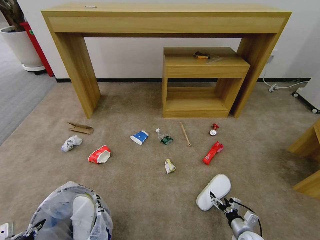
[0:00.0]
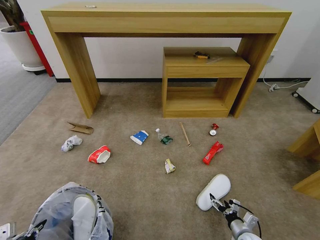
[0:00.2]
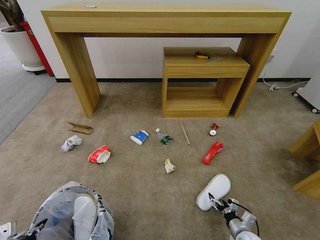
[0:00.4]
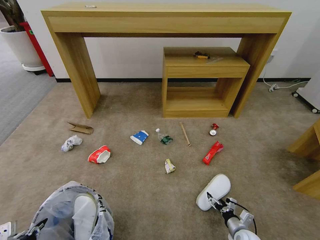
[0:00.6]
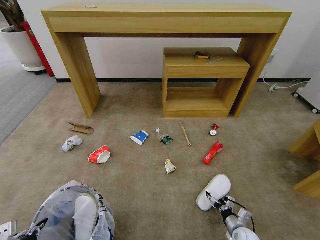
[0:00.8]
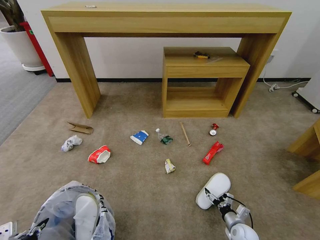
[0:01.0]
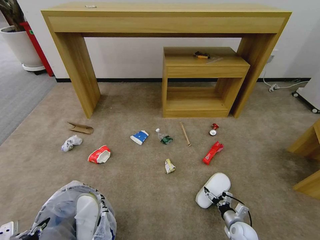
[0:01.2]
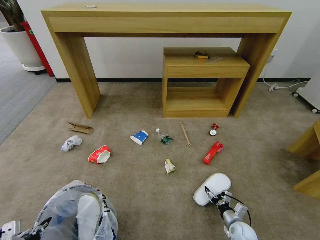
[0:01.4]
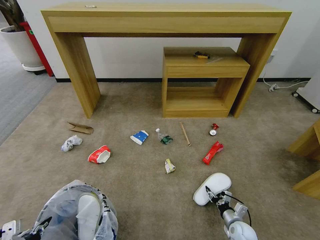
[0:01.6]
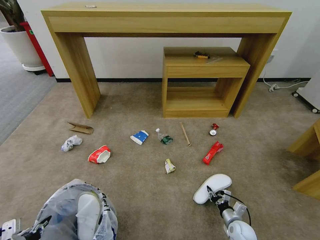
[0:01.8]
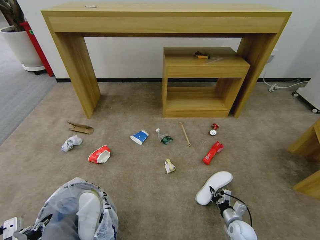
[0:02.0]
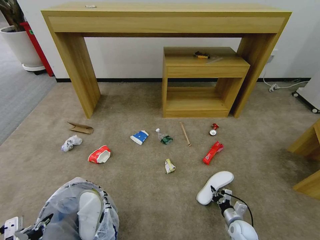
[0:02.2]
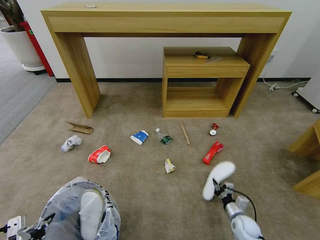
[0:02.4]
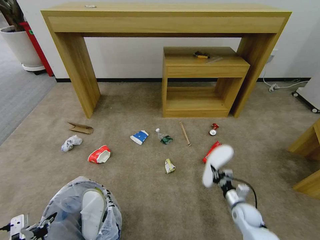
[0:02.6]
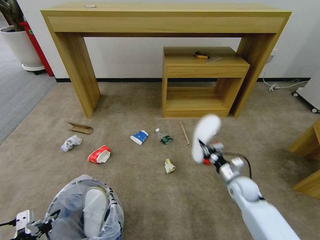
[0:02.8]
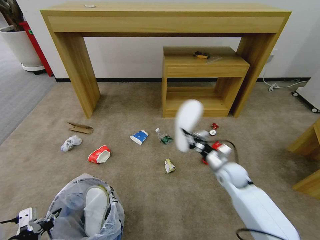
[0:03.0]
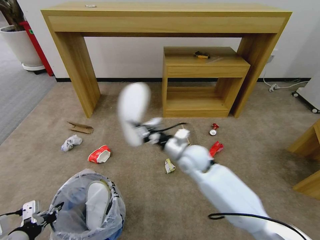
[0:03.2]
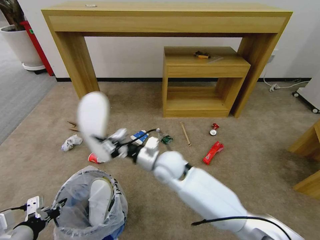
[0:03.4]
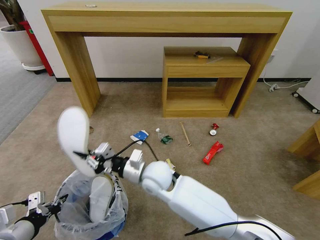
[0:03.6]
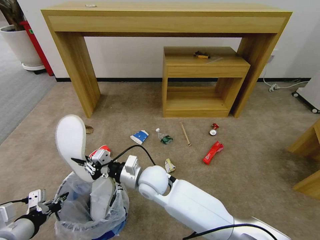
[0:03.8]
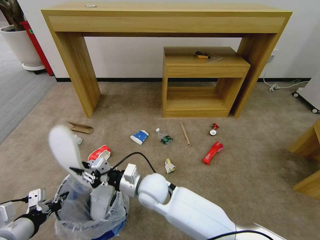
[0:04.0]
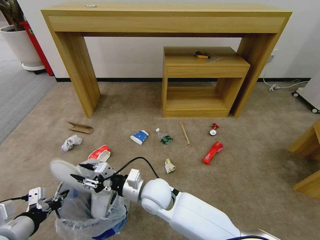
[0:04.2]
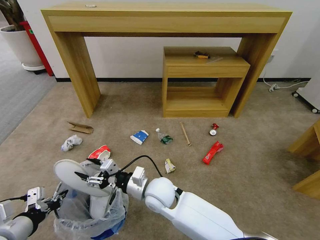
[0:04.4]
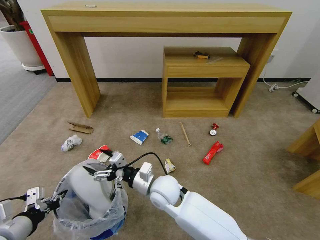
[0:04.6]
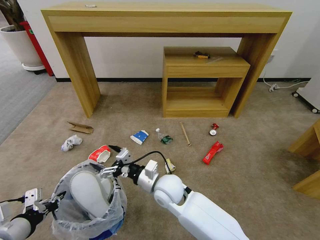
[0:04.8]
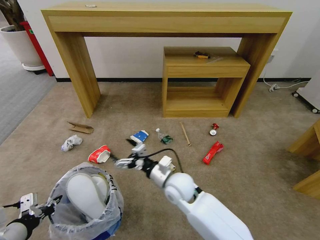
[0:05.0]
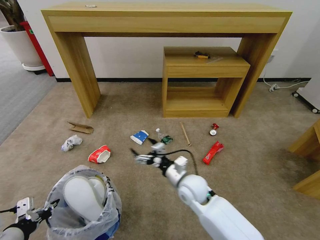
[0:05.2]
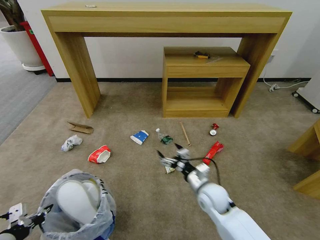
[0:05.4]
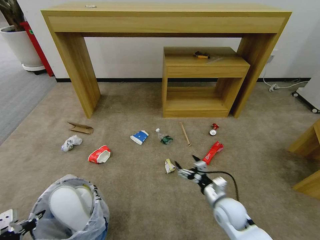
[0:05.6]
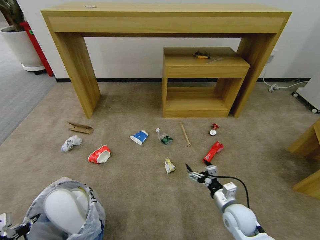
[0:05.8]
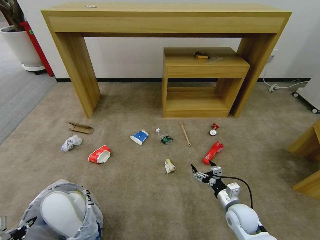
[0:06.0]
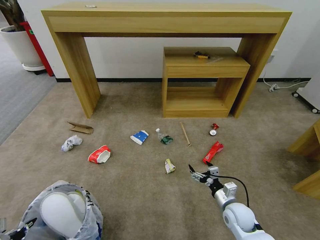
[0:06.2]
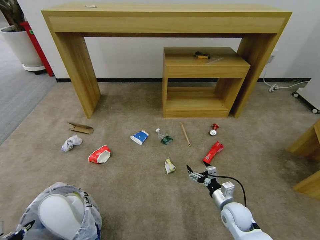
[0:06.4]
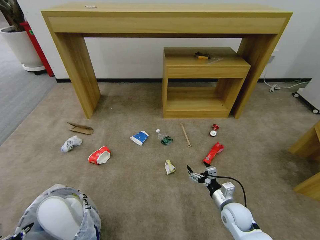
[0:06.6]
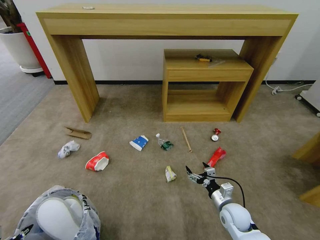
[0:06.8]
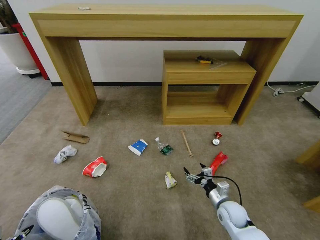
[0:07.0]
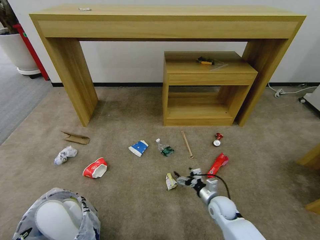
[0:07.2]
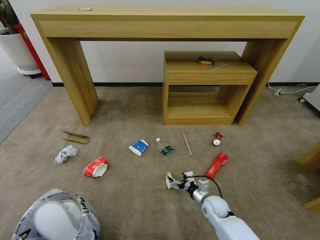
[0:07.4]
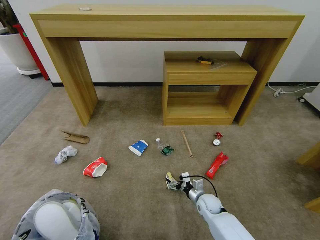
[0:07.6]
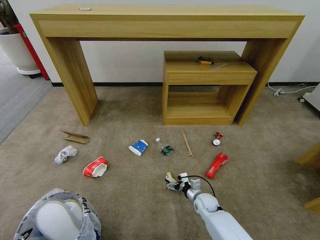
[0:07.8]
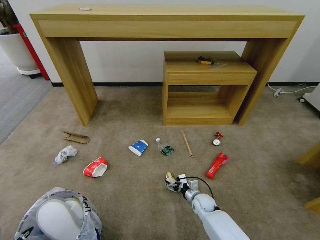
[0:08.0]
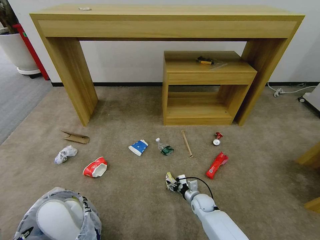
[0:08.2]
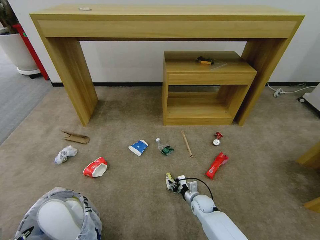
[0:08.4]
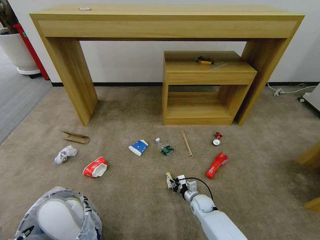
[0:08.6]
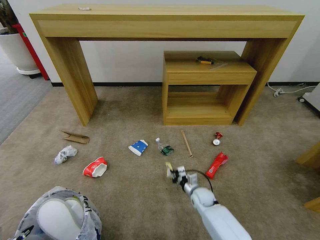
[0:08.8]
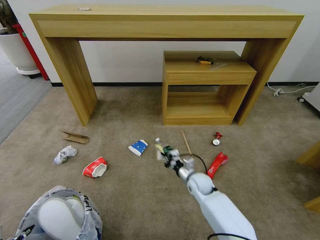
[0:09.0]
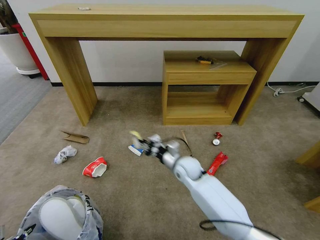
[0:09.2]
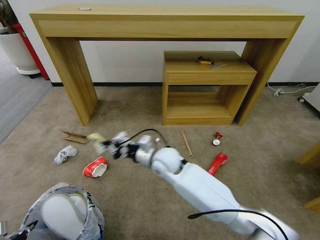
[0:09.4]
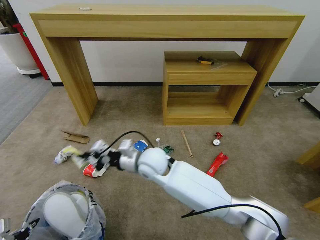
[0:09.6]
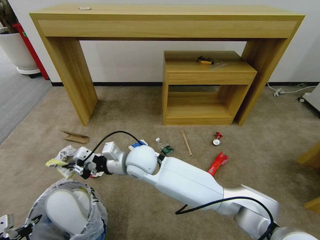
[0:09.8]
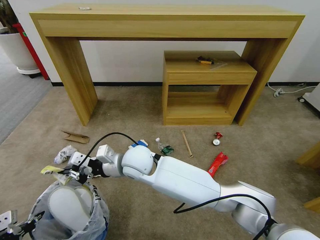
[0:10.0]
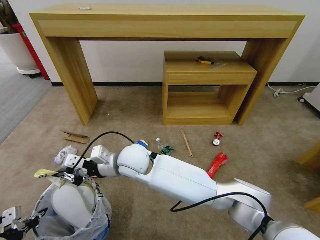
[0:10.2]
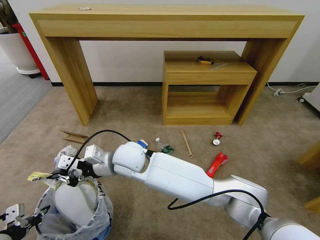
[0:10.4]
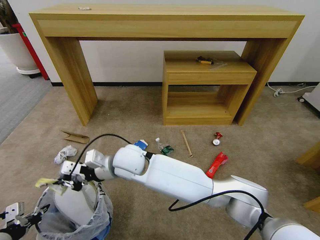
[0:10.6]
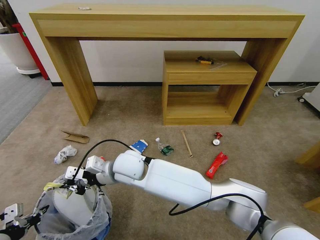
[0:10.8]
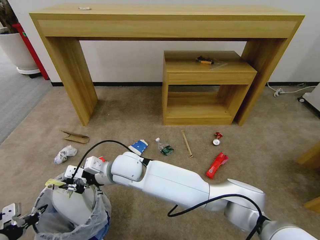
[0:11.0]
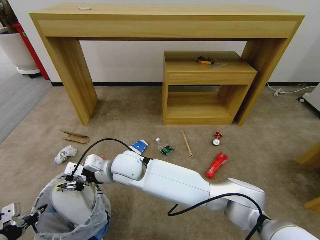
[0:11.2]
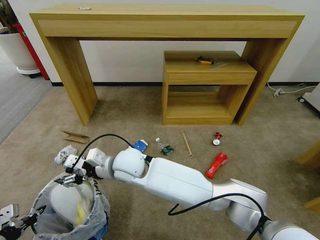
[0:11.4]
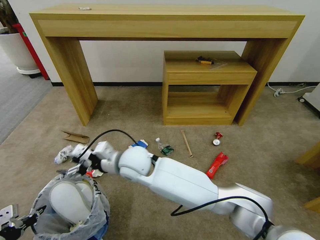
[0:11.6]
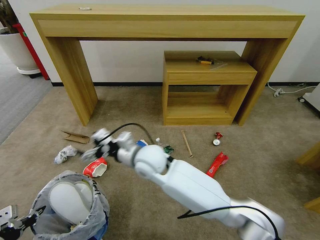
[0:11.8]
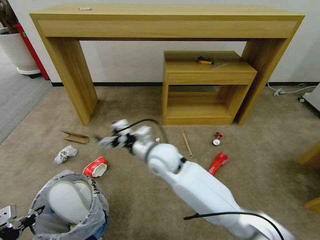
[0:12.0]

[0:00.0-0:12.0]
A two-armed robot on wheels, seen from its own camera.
Task of the whole recording: Pick up the trash bin and place the garbage on the floor into it.
0:00.0 to 0:01.6: The right gripper ends up about 5 cm from where it was, and closes.
0:01.6 to 0:03.0: The right gripper is displaced upward, forward and to the left by about 30 cm, and closes.
0:03.0 to 0:04.4: The right gripper shifts some 25 cm to the left and backward, and opens up.
0:04.4 to 0:06.0: The right gripper goes some 30 cm to the right, and opens; the left gripper is displaced to the left and backward by about 10 cm.
0:06.0 to 0:07.6: The right gripper shifts about 15 cm downward, forward and to the left.
0:07.6 to 0:09.0: The right gripper moves upward, forward and to the left, some 15 cm, and closes.
0:09.0 to 0:10.4: The left gripper shifts some 5 cm forward, while the right gripper goes roughly 35 cm to the left and upward.
0:10.4 to 0:12.0: The right gripper goes roughly 10 cm to the right, and opens up.

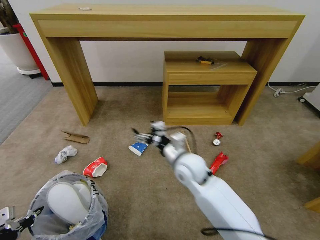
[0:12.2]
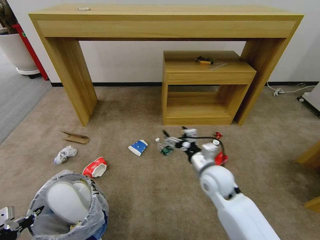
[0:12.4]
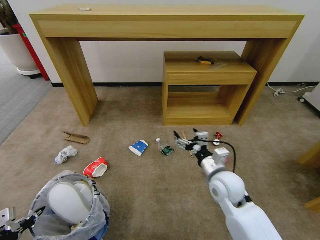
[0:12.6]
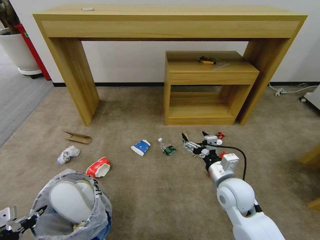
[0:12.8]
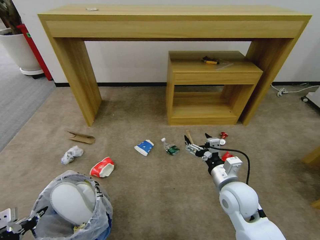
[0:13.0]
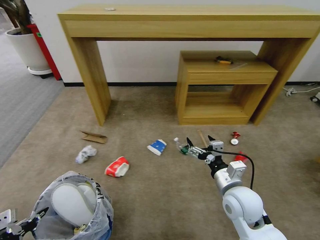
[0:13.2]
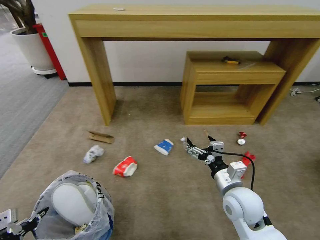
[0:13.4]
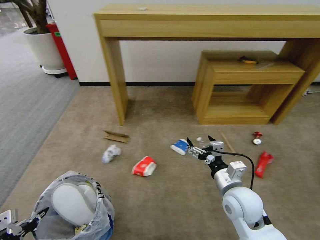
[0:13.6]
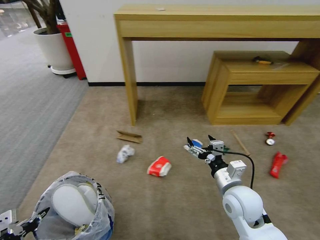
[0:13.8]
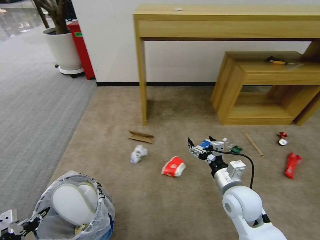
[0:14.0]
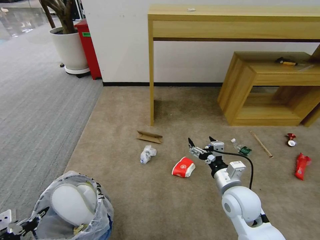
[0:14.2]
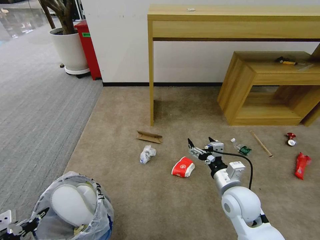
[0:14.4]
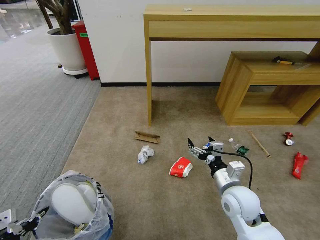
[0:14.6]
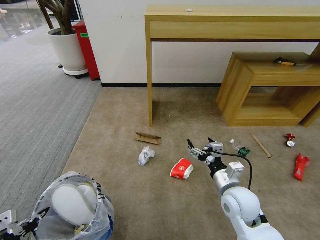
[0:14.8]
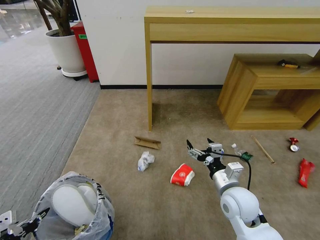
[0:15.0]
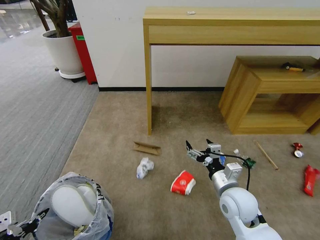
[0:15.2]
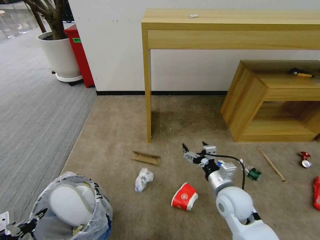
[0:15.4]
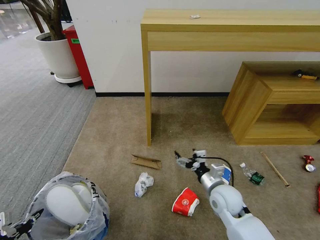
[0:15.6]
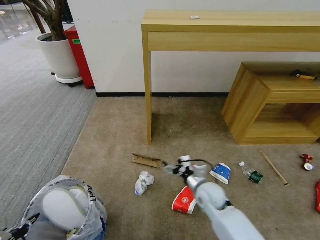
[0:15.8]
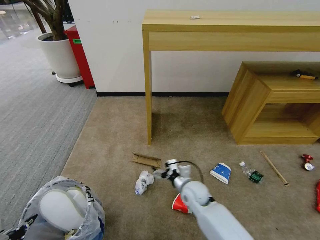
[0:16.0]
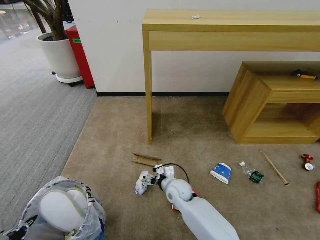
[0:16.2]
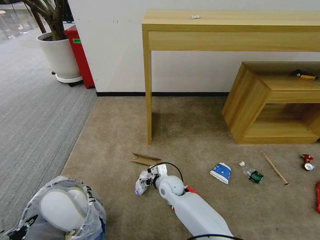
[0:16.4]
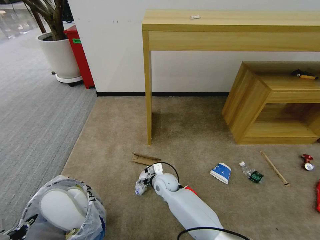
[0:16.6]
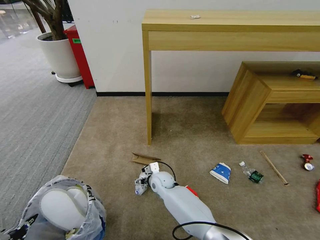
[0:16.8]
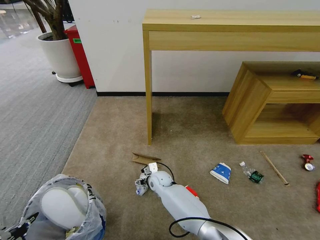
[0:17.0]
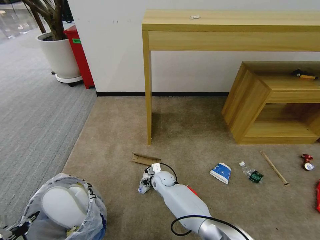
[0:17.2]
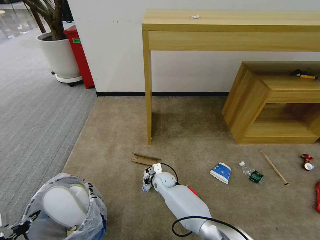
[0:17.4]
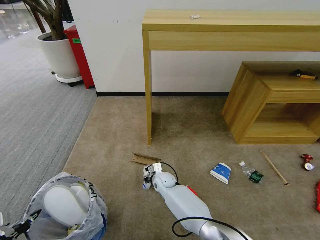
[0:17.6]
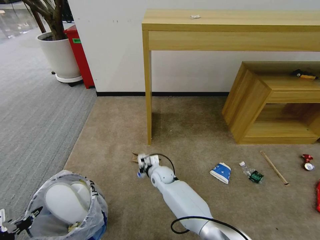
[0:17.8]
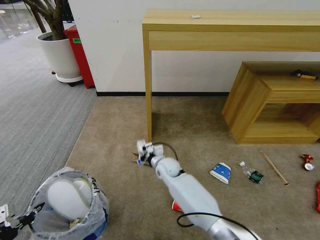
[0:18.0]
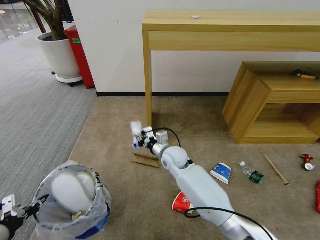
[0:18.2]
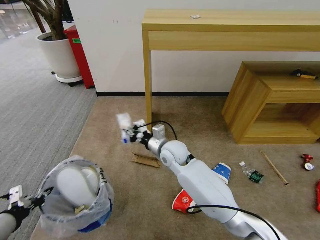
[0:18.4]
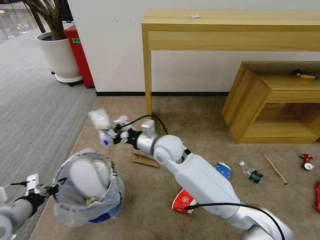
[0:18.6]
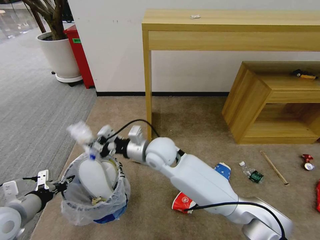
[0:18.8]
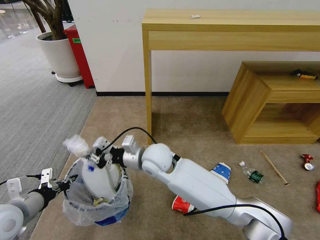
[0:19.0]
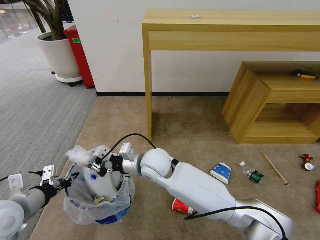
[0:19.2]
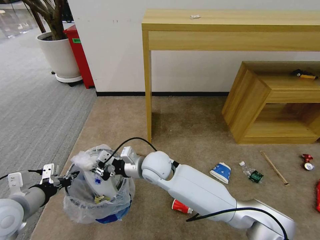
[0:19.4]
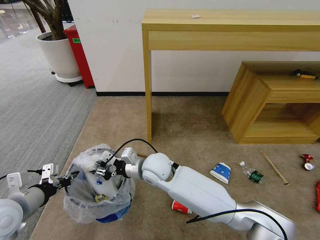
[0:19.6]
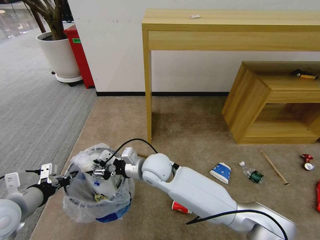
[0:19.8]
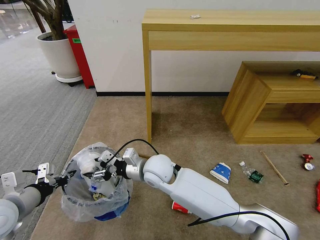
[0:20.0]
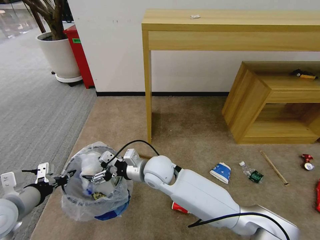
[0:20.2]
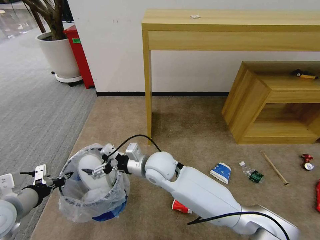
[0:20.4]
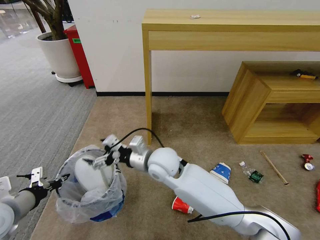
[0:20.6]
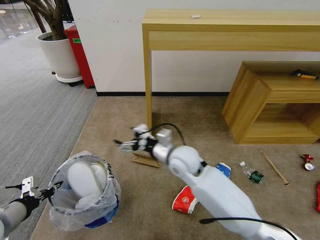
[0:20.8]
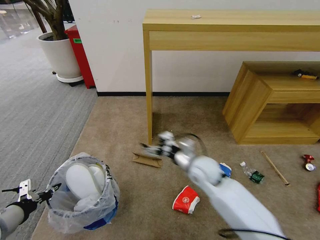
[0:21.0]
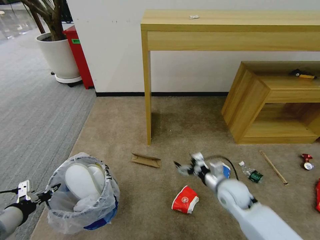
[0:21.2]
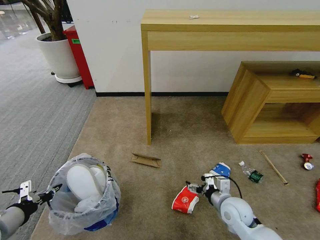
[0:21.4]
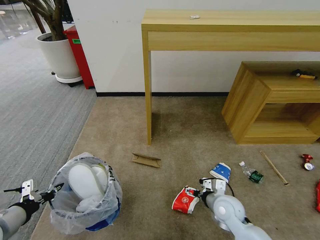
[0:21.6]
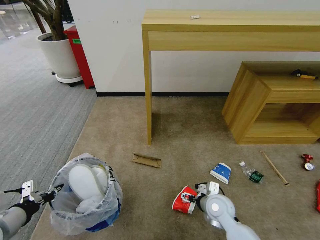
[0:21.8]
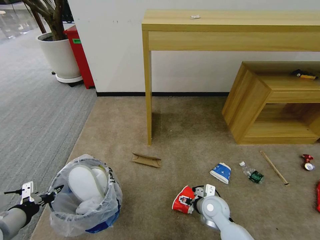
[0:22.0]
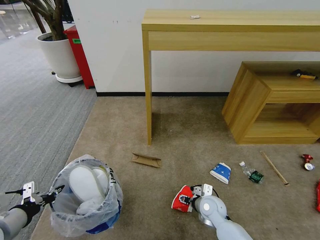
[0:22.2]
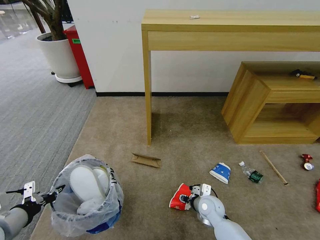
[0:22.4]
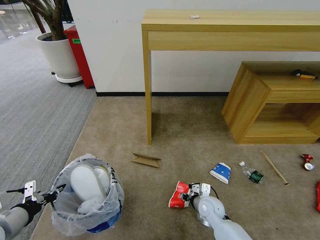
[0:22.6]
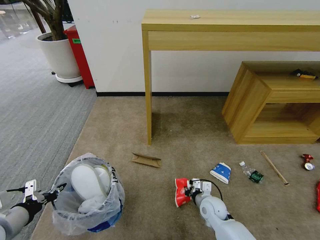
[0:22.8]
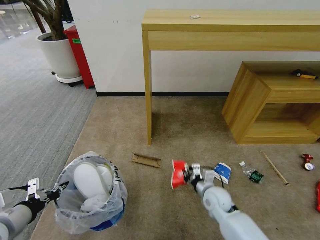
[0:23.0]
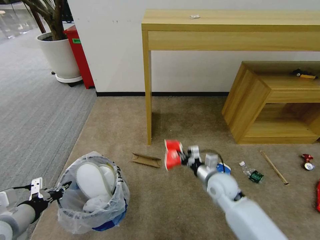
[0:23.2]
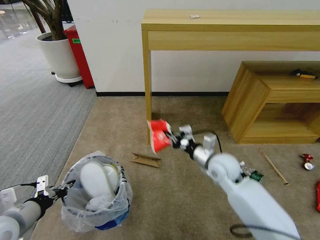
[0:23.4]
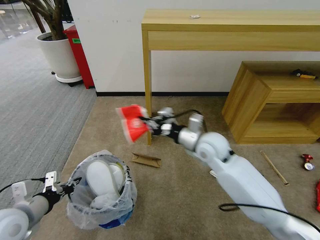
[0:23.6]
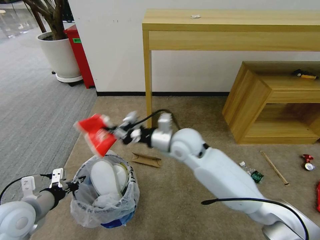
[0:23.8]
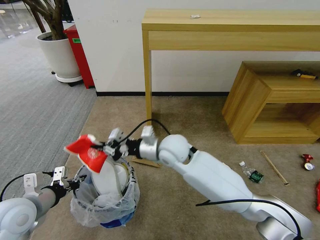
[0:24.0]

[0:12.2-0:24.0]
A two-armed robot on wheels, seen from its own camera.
Task of the whole recording: Pick up the trash bin and place the garbage on the floor into it.
0:12.2 to 0:13.6: The right gripper goes about 20 cm to the right and backward.
0:15.2 to 0:16.6: The right gripper goes about 25 cm to the left, downward and forward.
0:16.6 to 0:18.2: The left gripper heads forward, covering some 5 cm. Meanwhile the right gripper moves upward and forward, about 15 cm, and closes its fingers.
0:18.2 to 0:19.6: The right gripper is displaced backward, to the left and upward by roughly 10 cm; the left gripper heads forward and to the right, covering some 10 cm.
0:19.6 to 0:21.0: The right gripper is displaced to the right by roughly 20 cm, and opens. The left gripper travels to the left by some 5 cm.
0:21.0 to 0:22.6: The right gripper travels downward by roughly 15 cm, and closes up.
0:22.6 to 0:24.0: The left gripper goes approximately 10 cm forward and to the right. The right gripper travels upward and to the left by some 30 cm, and closes its fingers.
